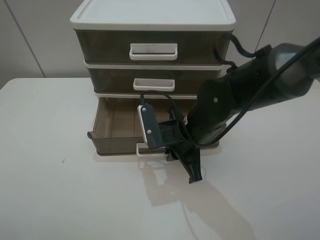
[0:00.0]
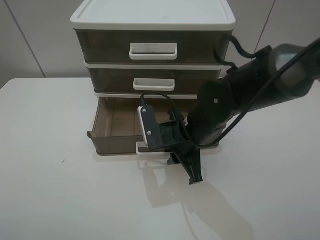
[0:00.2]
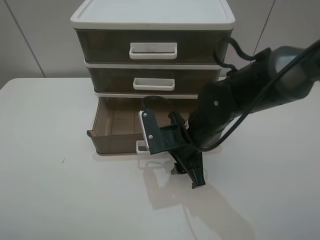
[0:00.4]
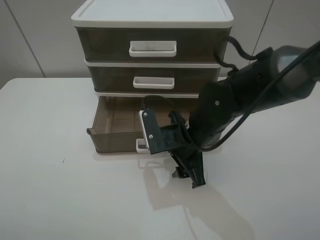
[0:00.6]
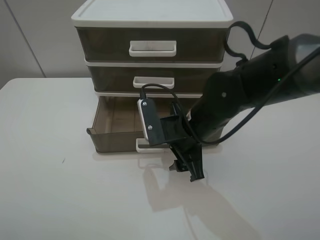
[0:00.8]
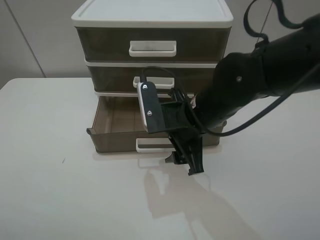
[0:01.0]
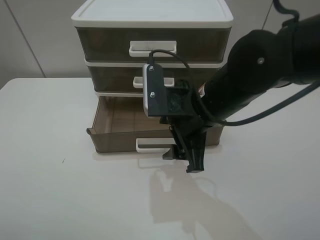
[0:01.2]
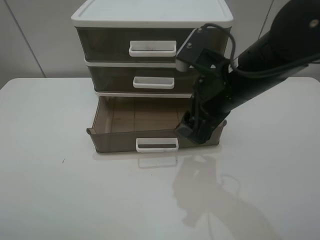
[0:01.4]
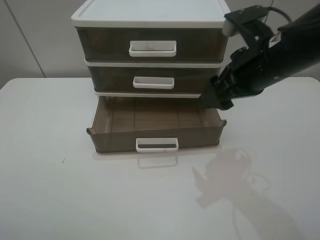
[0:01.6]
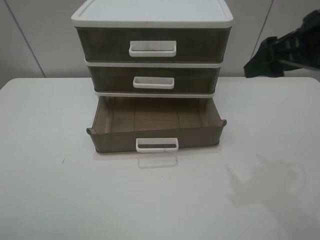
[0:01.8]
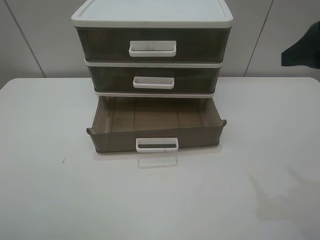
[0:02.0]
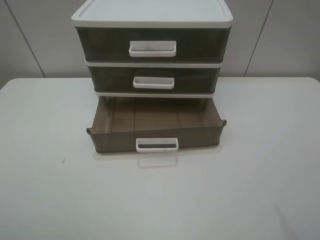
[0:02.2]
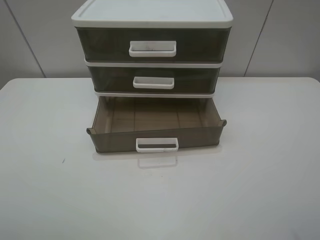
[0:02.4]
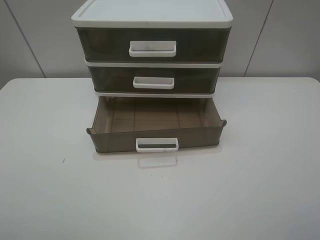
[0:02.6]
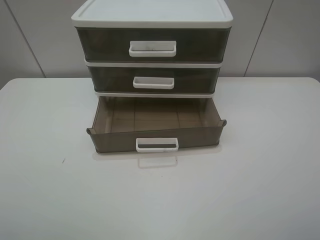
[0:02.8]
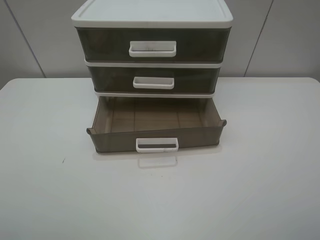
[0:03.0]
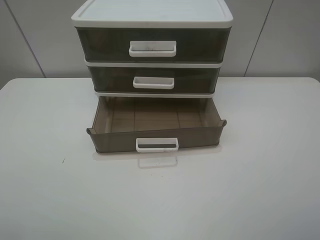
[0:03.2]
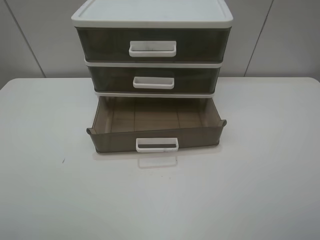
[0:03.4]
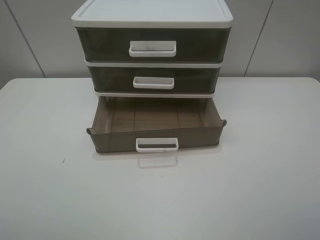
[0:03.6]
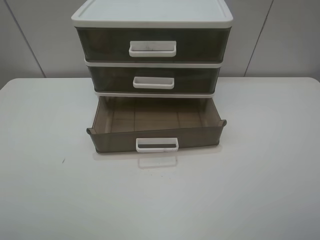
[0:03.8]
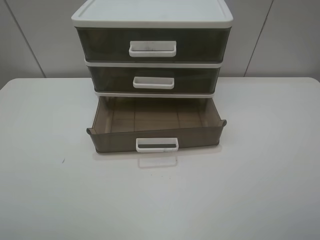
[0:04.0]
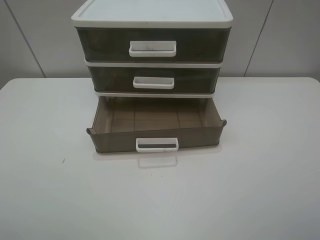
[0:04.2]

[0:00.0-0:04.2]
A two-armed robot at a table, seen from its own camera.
Task of the whole recording: open the bottom drawer.
0:00.0 to 0:01.4: The right gripper goes roughly 15 cm upward and to the right, and opens its fingers.
0:01.4 to 0:02.8: The right gripper travels backward and to the right by some 30 cm.

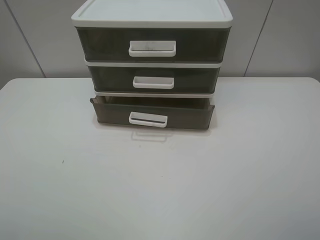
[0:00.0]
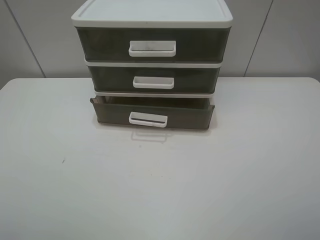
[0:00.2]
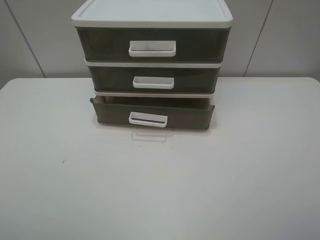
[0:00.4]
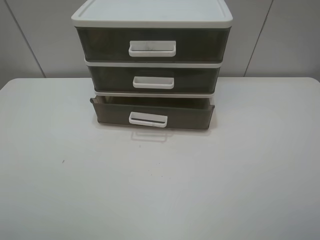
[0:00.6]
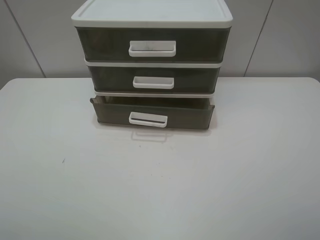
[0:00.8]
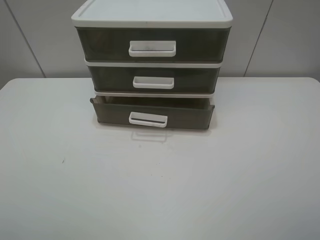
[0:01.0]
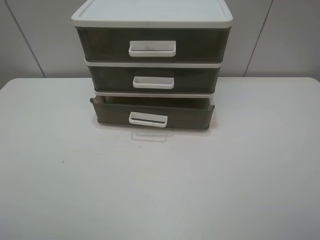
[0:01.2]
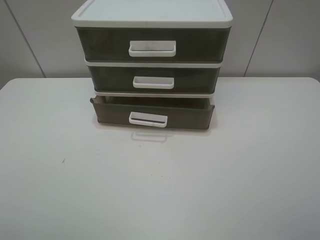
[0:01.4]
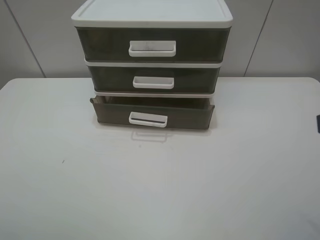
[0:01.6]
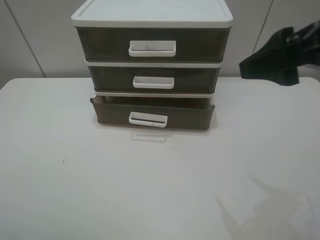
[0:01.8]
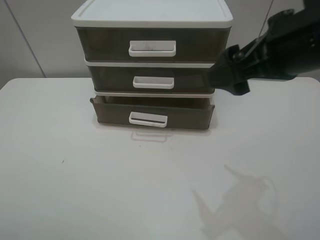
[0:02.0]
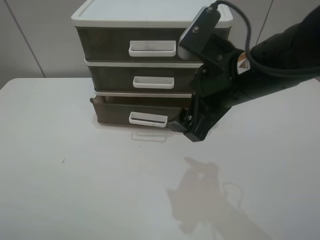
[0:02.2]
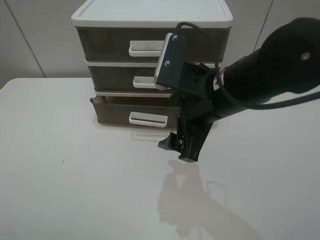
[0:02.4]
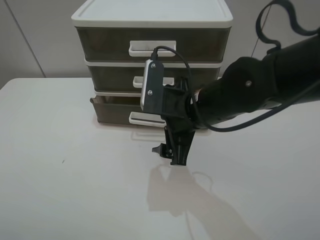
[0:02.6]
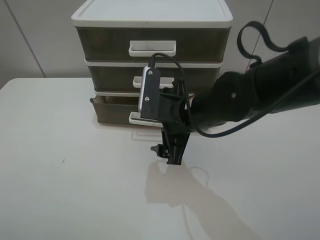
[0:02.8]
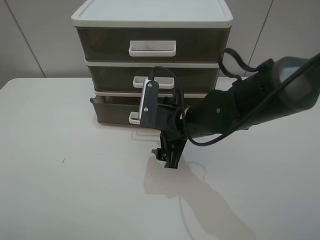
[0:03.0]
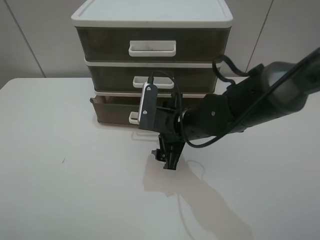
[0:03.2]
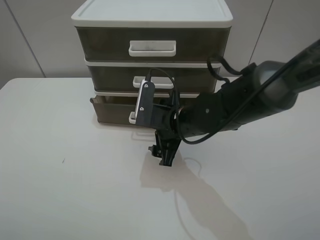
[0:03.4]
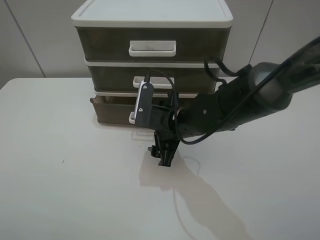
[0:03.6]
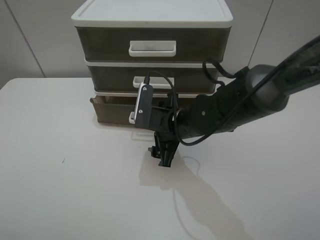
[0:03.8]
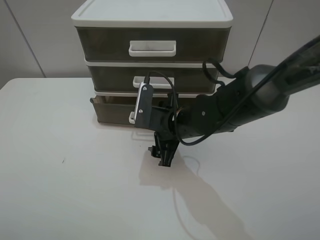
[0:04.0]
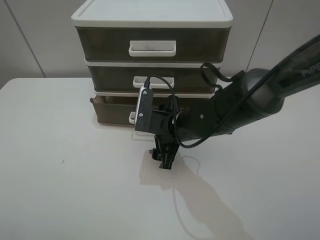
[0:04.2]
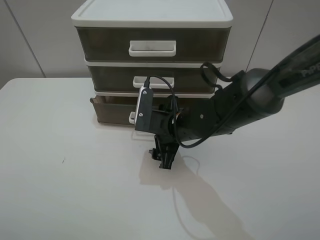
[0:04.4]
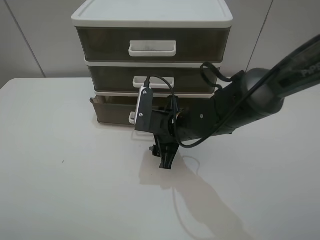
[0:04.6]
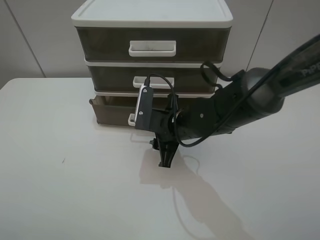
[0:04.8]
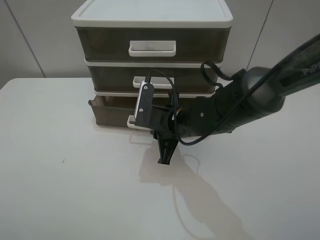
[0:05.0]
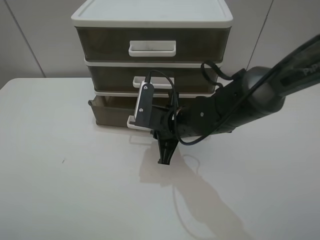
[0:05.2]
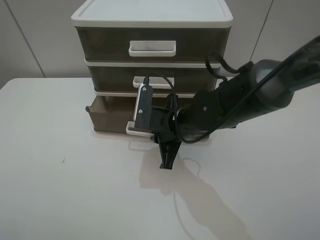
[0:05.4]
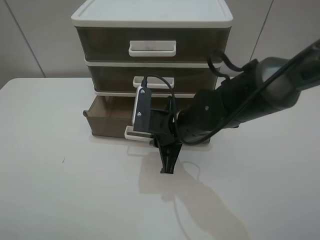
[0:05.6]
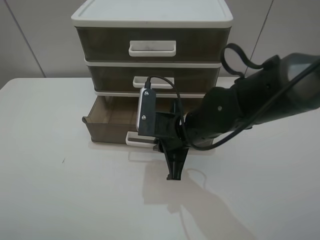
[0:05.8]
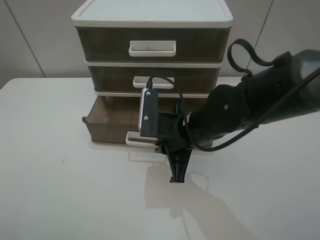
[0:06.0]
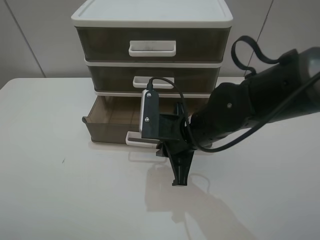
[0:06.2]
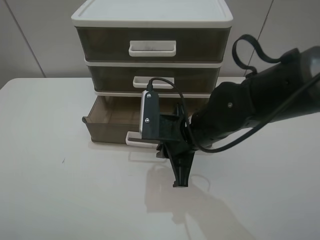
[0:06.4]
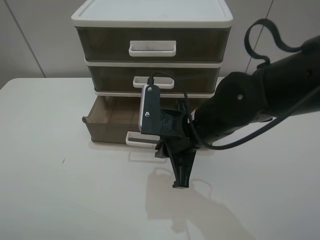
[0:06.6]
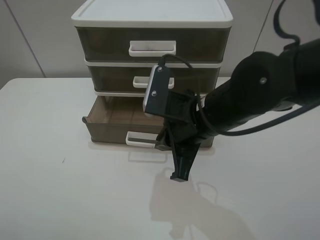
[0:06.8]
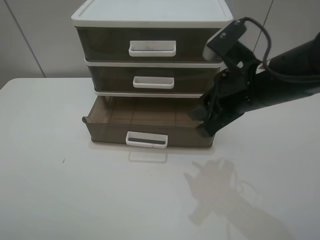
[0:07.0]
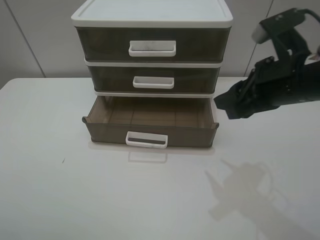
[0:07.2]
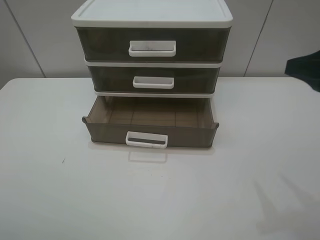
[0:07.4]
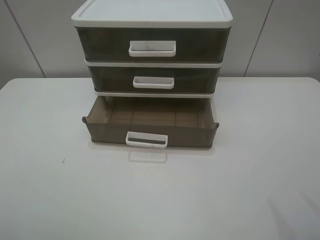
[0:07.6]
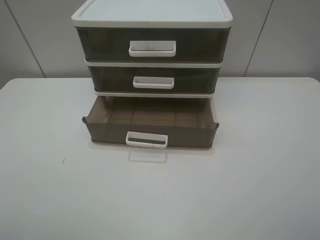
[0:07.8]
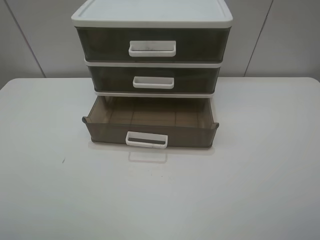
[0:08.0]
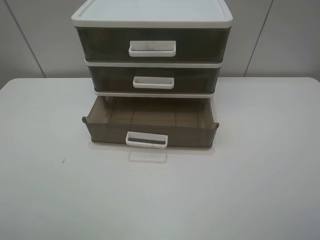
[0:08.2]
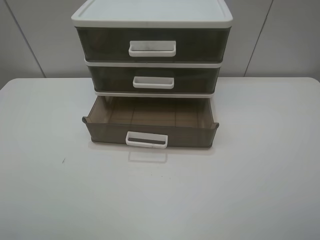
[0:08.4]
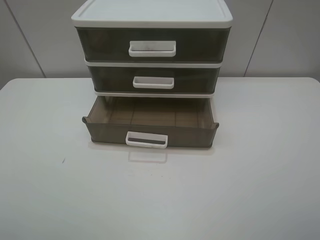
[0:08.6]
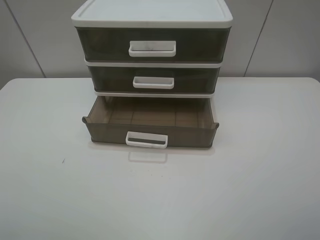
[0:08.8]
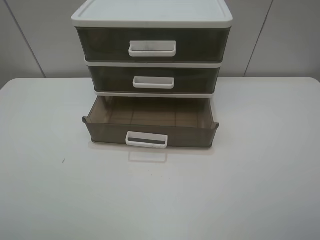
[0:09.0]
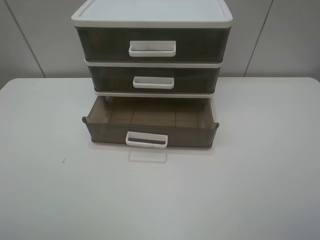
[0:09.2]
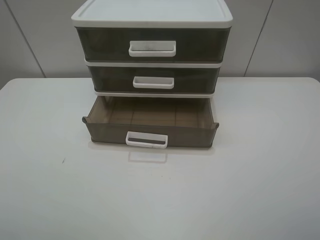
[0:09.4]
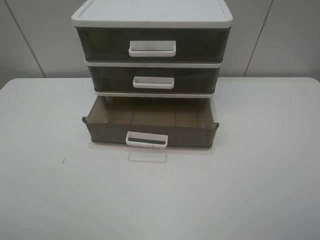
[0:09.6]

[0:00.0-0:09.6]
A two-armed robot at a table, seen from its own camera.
Task of the whole recording: open the bottom drawer.
Step, 0:00.0 to 0:05.0: Grab the bottom drawer with the right gripper.
Step, 0:05.2 to 0:07.0: Pull open the drawer with the right gripper.
0:01.6 to 0:03.2: The right gripper moves to the left, forward and downward, about 35 cm.
0:03.2 to 0:04.8: The grippers make only small movements.
0:04.8 to 0:06.4: The right gripper ends up some 5 cm from where it was, and closes.
0:06.4 to 0:08.0: The right gripper is displaced to the right, backward and upward by about 35 cm, and opens its fingers.
